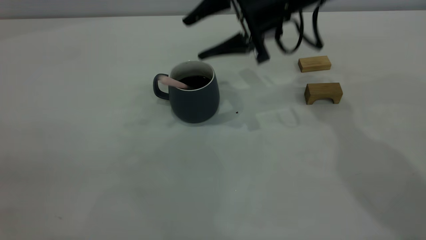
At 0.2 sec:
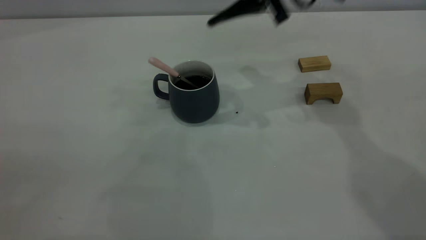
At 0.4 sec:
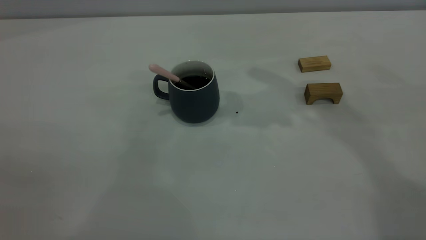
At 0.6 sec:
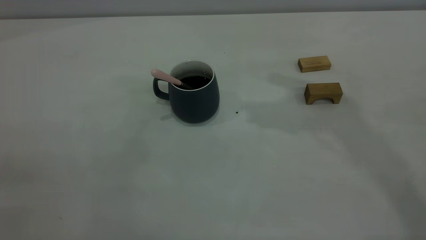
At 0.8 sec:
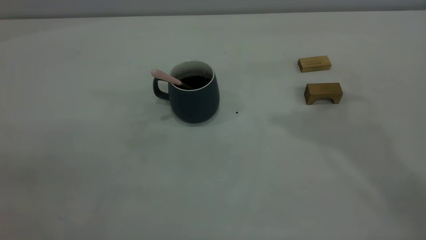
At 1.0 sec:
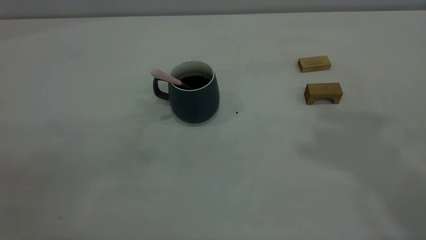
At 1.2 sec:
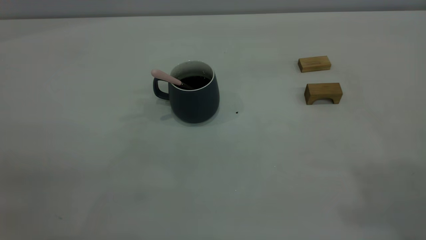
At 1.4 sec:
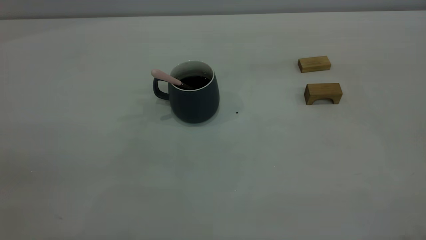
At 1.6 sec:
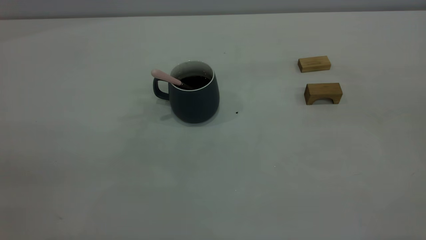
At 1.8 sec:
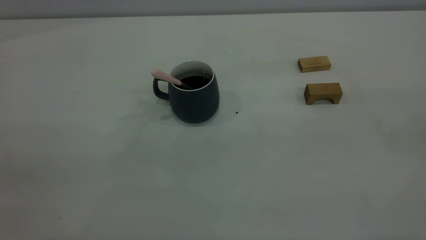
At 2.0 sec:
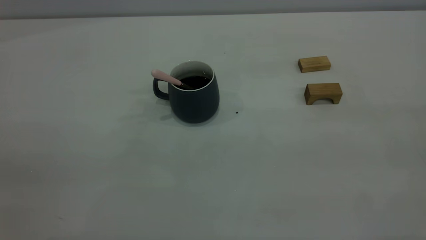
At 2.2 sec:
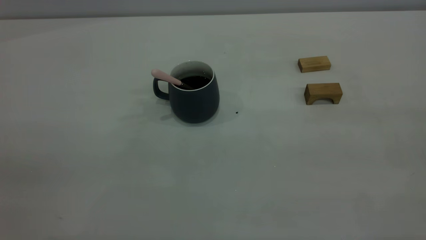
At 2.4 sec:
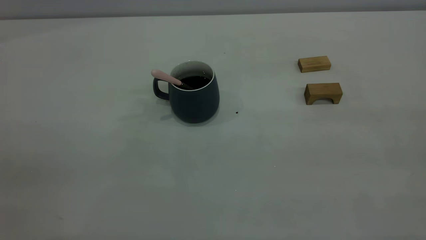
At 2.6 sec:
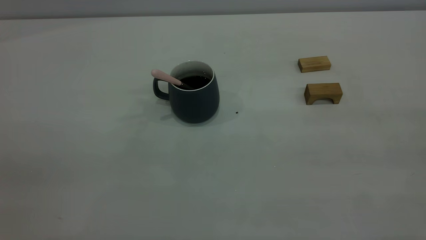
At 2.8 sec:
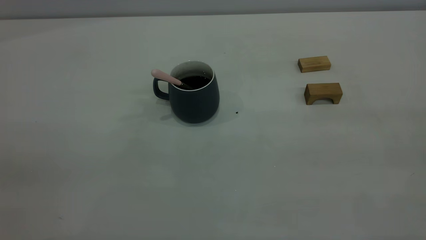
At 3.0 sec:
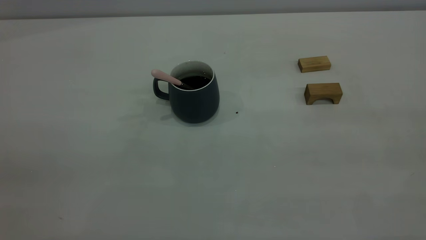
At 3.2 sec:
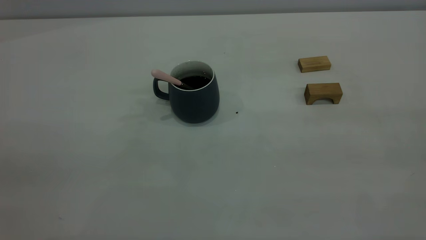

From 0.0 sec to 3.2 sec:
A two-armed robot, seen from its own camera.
From 0.0 sec to 1.6 sec: The right gripper moves backward, upward and to the right, about 50 cm, and closes its fingers.
